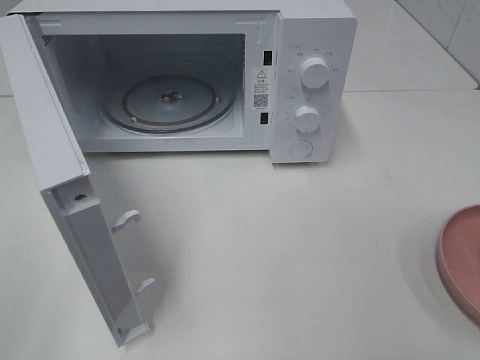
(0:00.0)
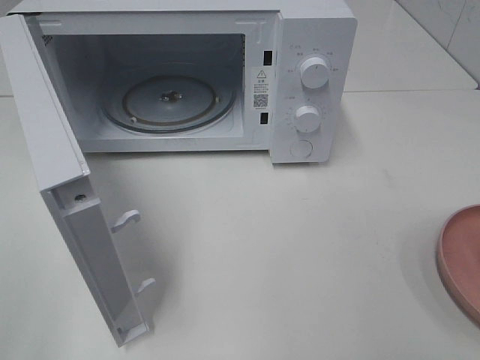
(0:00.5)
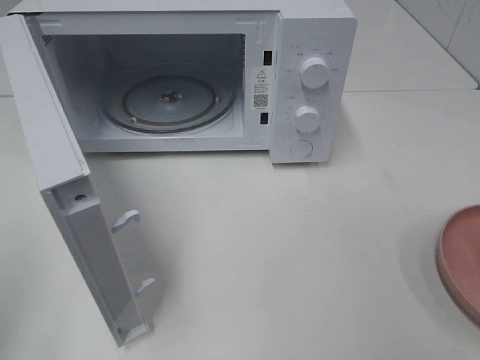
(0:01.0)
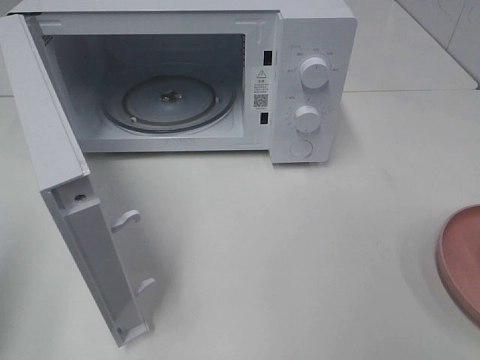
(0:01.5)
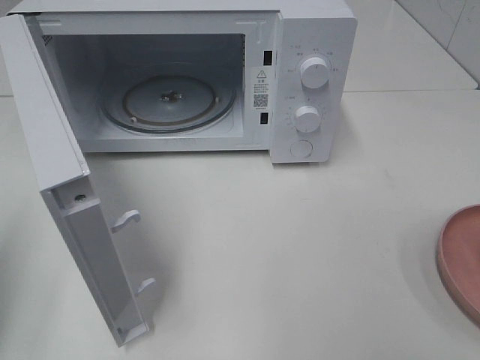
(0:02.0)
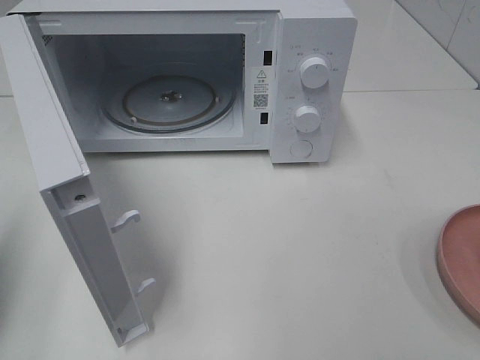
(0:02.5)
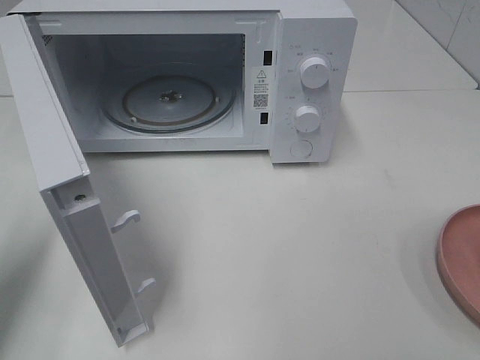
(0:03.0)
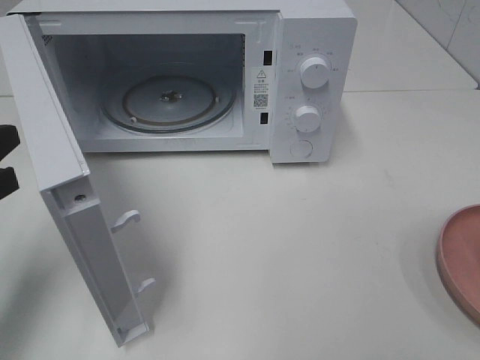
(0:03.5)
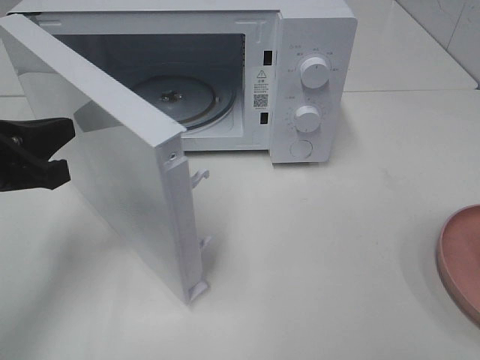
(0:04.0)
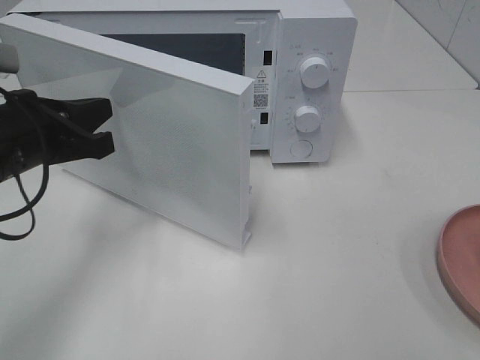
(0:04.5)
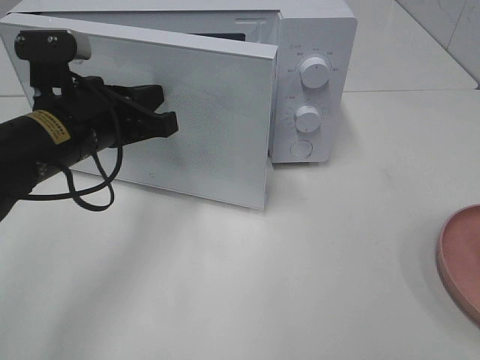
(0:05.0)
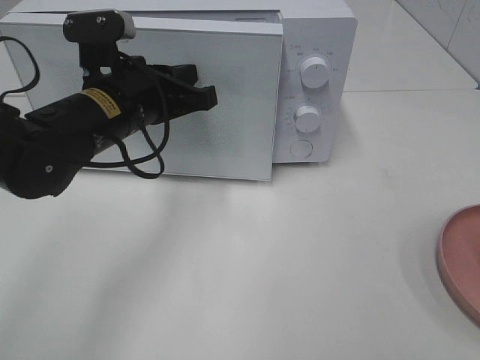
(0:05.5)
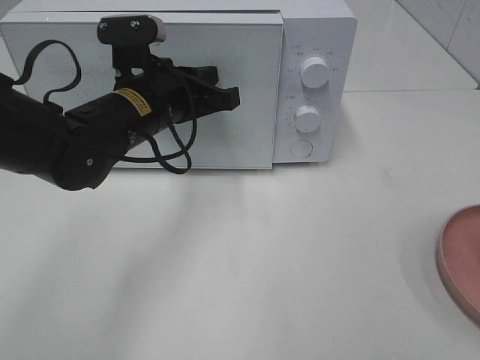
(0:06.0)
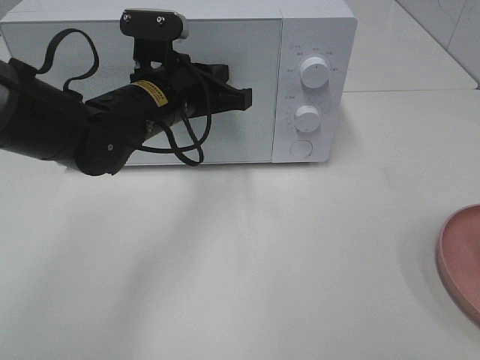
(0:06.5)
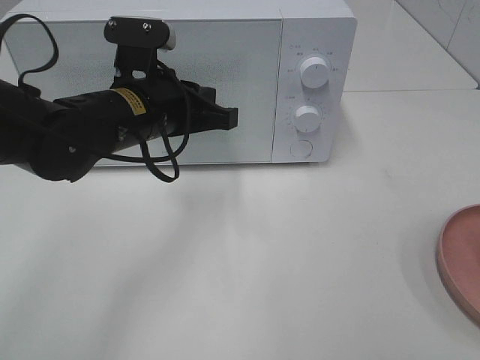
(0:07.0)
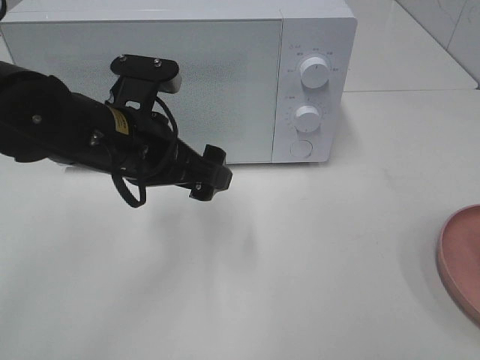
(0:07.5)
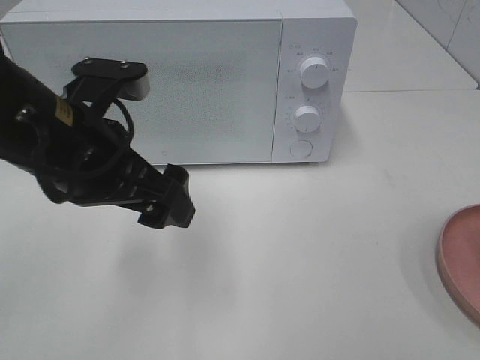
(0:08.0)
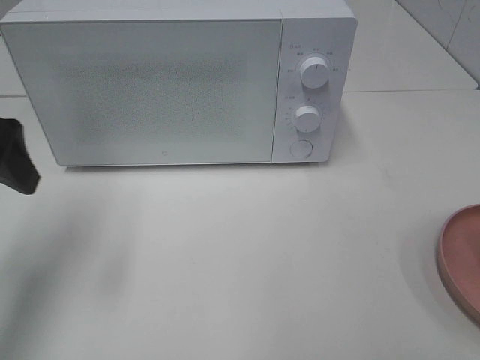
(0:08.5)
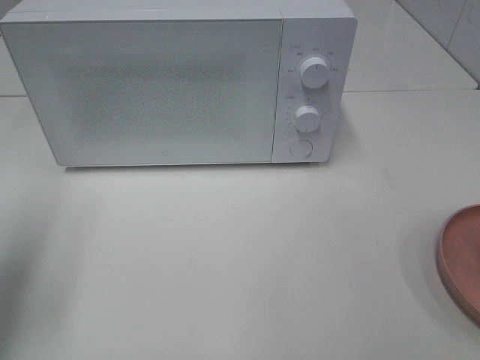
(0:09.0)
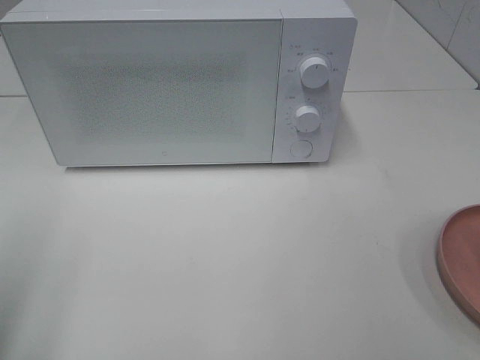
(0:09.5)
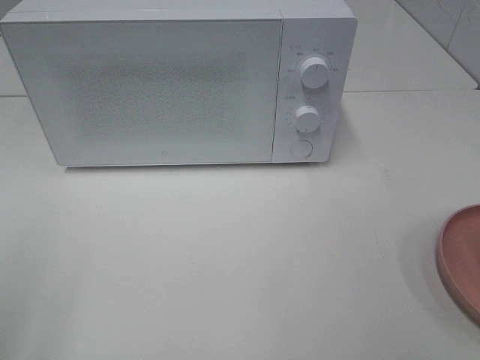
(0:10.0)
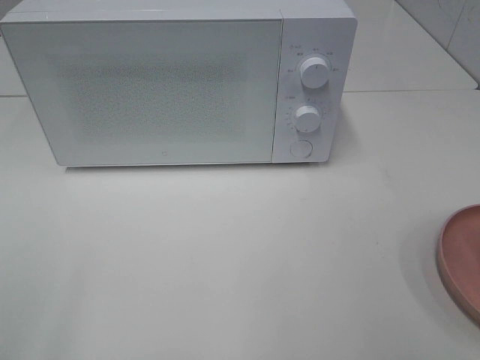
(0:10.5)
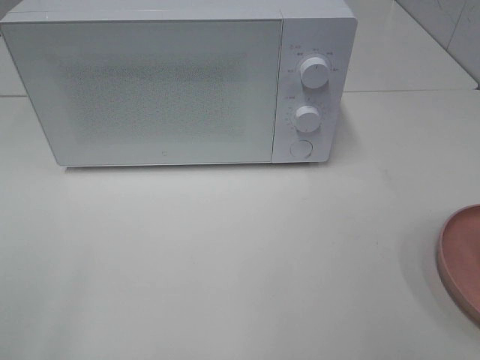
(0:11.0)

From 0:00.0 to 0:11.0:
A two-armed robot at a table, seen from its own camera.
Task of the whole recording: Heat the burger.
Step, from 0:00.0 to 0:07.0: Left hand: close the microwave door.
From 0:02.0 to 0:03.5: The left gripper shifts some 10 cm forward, to the right and downward.
From 0:03.5 to 0:05.5: The left gripper shifts some 20 cm to the right and forward.
From 0:05.5 to 0:07.5: The left gripper opens its fingers.
From 0:07.5 to 0:09.0: The left gripper heads to the left, covering approximately 20 cm.
From 0:09.0 to 0:11.0: The left gripper travels backward by about 20 cm.
